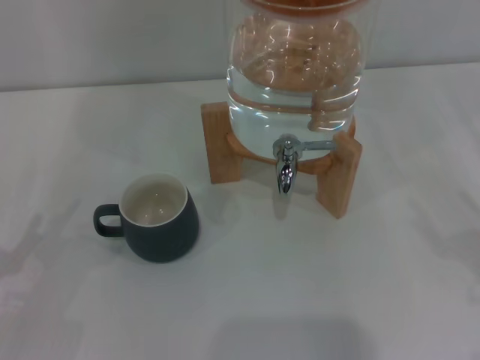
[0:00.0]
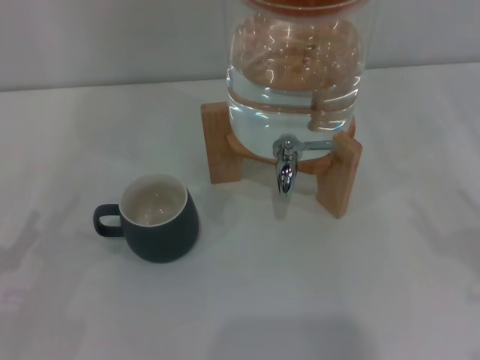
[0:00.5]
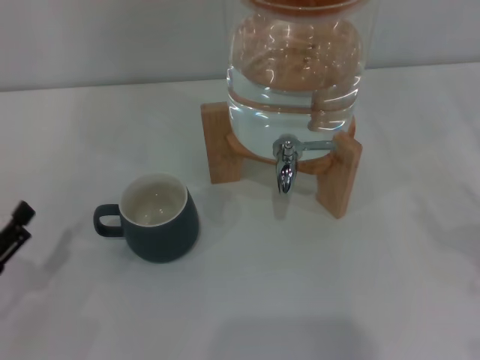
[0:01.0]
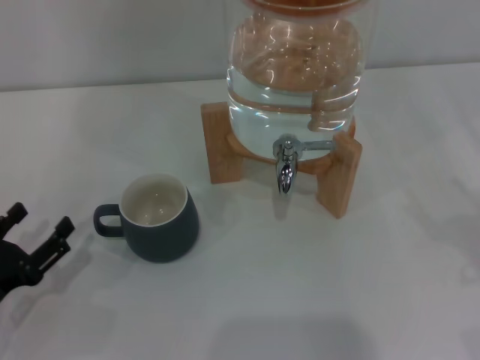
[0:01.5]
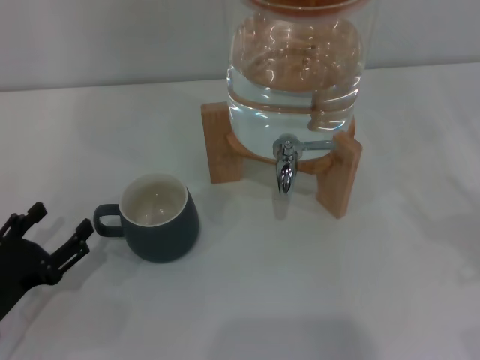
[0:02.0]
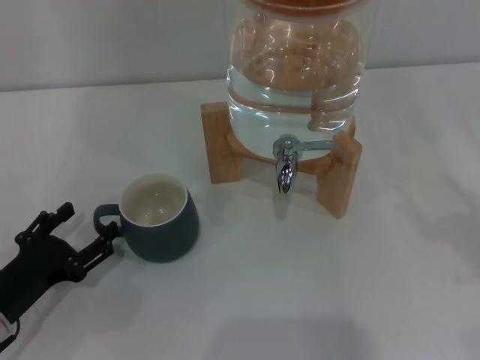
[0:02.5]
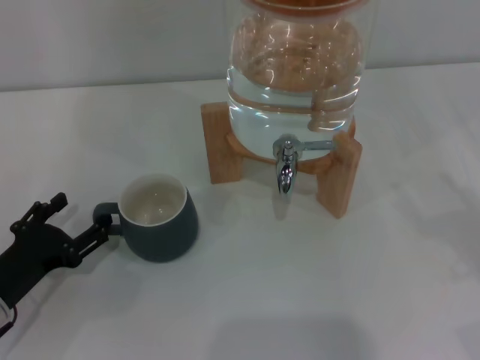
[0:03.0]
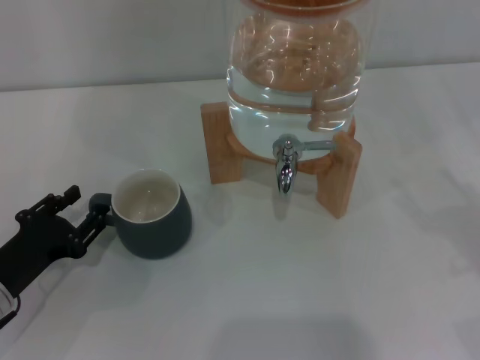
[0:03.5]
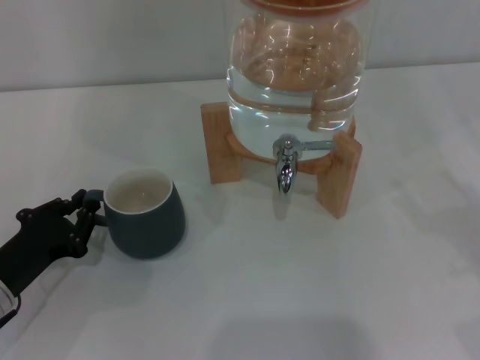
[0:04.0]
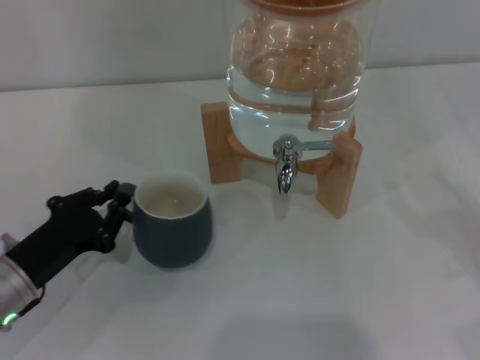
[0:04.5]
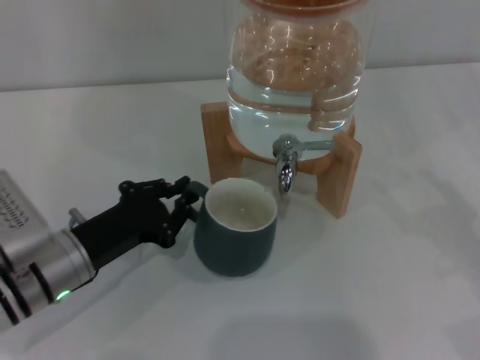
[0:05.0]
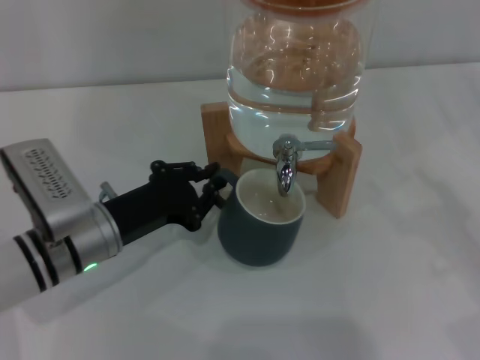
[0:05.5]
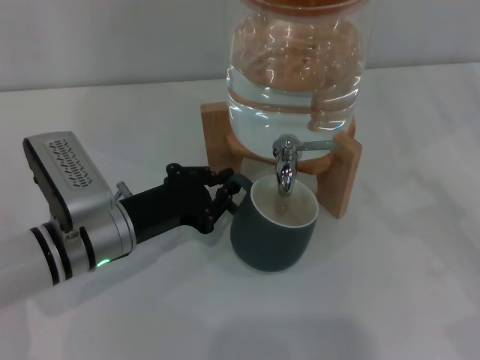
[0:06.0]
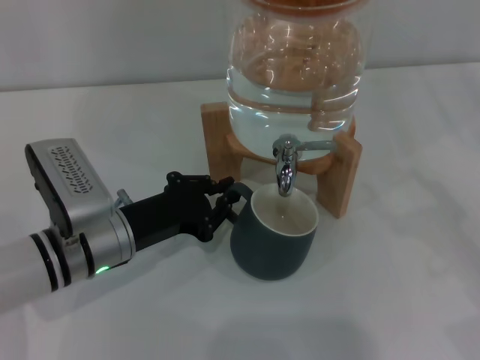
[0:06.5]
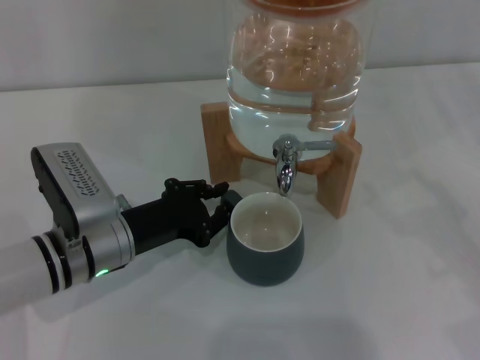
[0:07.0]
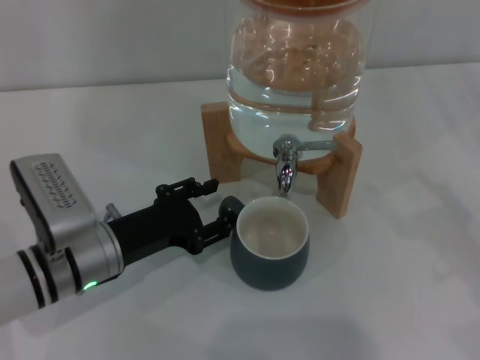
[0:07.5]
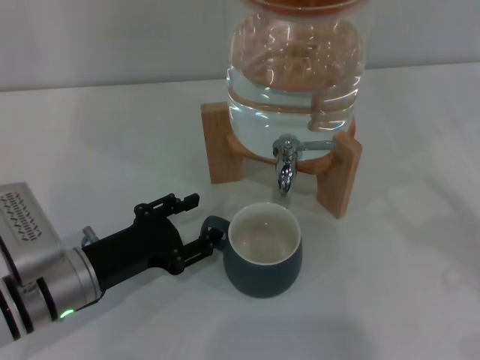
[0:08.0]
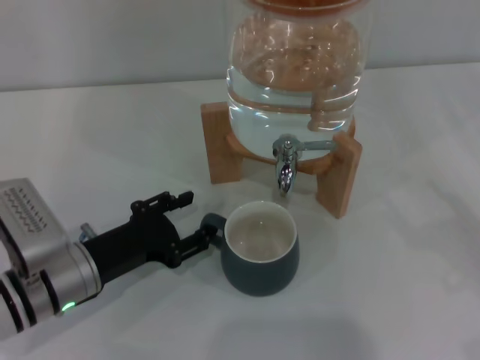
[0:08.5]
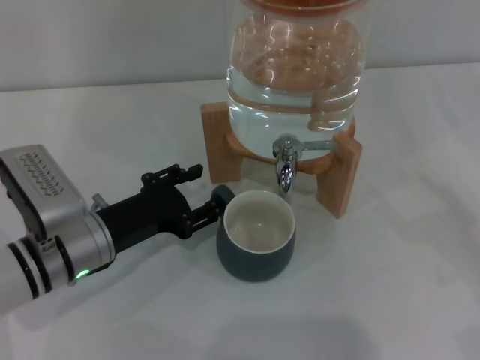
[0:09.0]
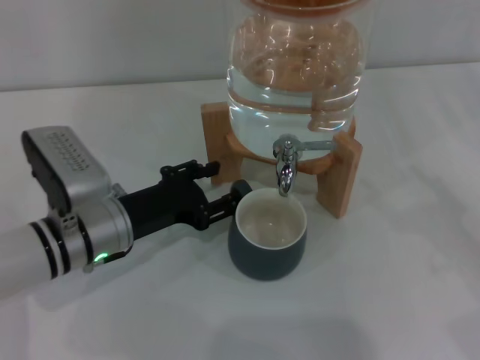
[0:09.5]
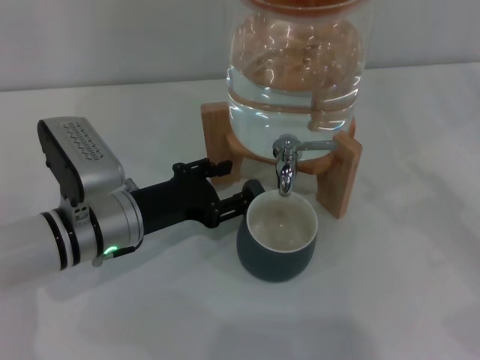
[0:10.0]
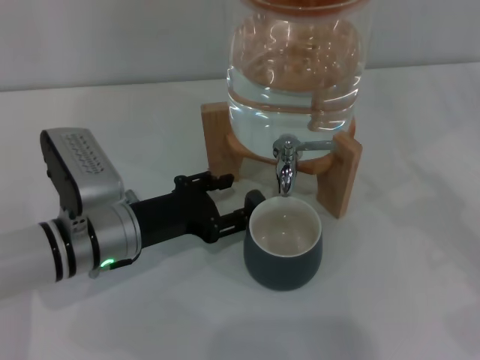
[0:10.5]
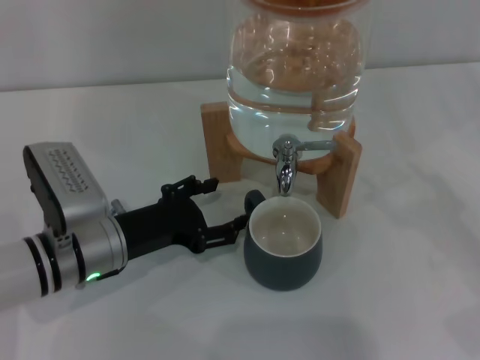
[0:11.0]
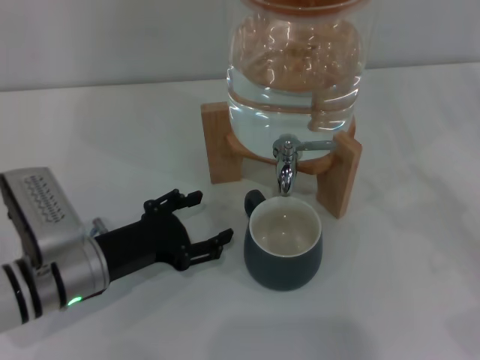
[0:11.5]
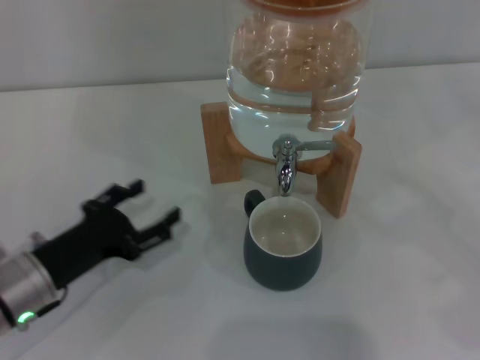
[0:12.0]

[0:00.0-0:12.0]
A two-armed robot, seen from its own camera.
Task of the whole recording: the left gripper pick up the black cup and place it horizontally under the faucet, the right gripper turn on the faucet to fill the cup, and then turn off the faucet.
Step, 0:00.0 to 0:11.0: Move the cup beneath the water dispenser nozzle with the left gripper.
0:00.0 to 0:02.0: The left gripper shifts by some 5 cm.
0:02.0 to 0:04.0: The left gripper closes.
0:04.0 to 0:06.0: The left gripper heads to the right and forward, covering some 15 cm.
0:06.0 to 0:08.0: The left gripper shifts by approximately 5 cm, and opens up.
0:08.0 to 0:10.0: The left gripper moves forward, some 5 cm.
0:10.0 to 0:12.0: The left gripper travels to the left and backward by about 10 cm.

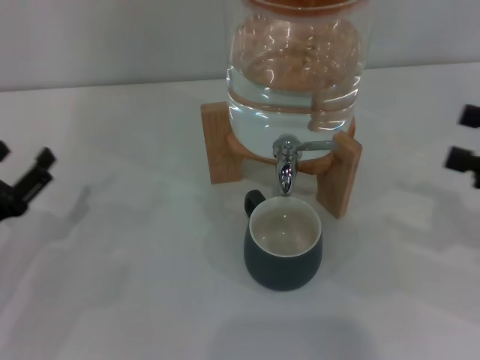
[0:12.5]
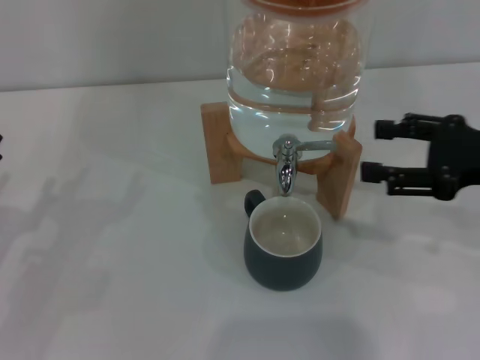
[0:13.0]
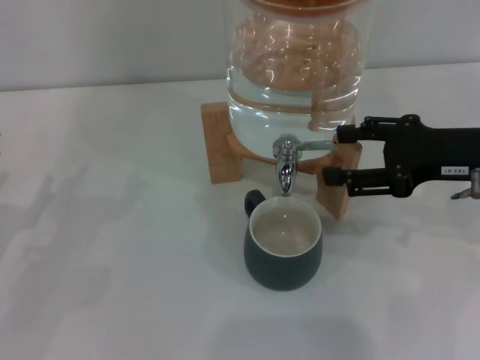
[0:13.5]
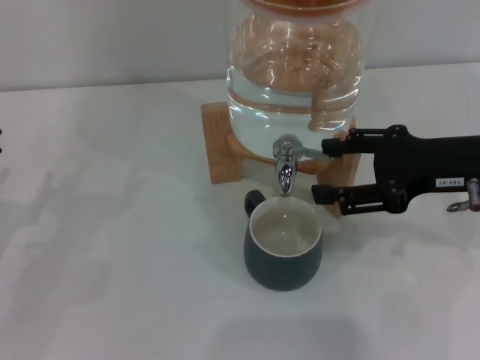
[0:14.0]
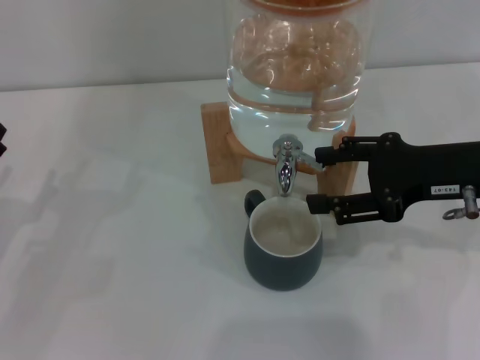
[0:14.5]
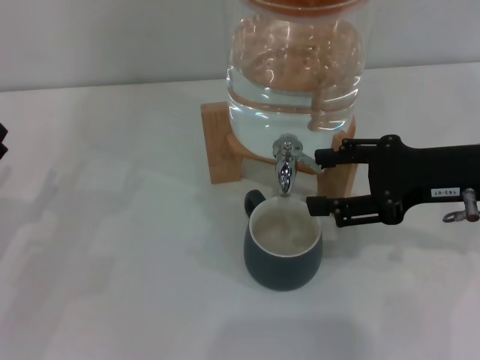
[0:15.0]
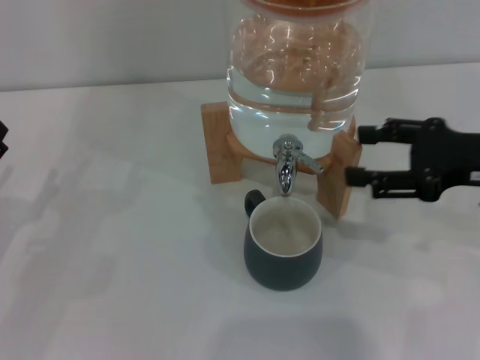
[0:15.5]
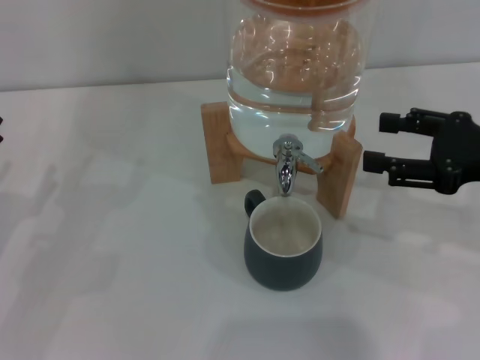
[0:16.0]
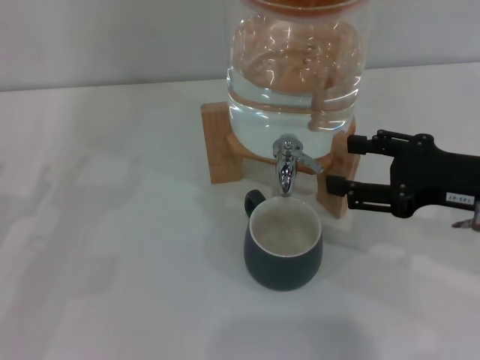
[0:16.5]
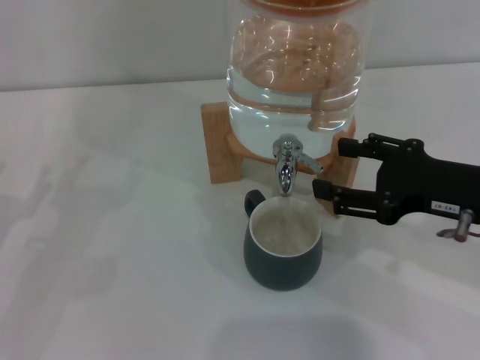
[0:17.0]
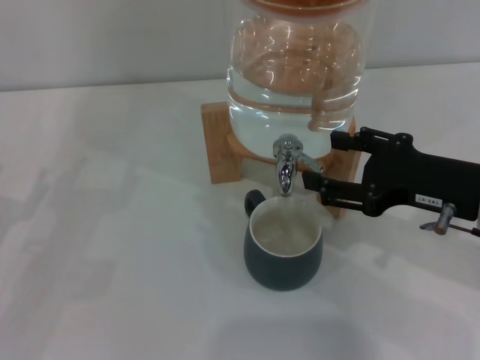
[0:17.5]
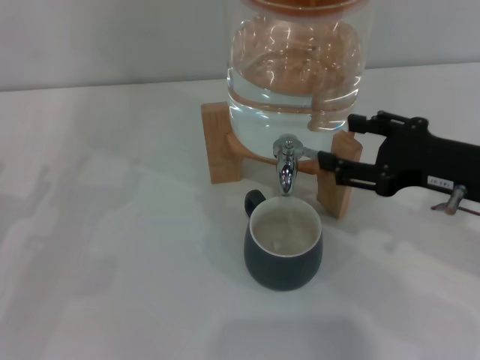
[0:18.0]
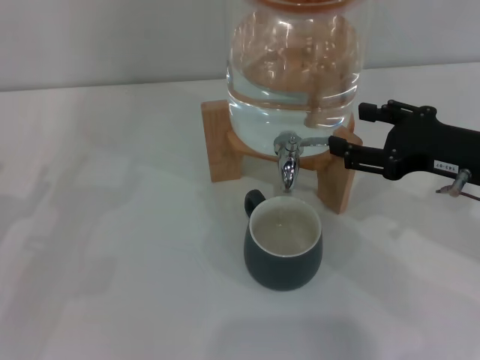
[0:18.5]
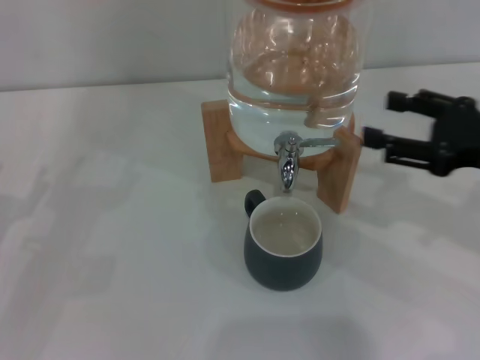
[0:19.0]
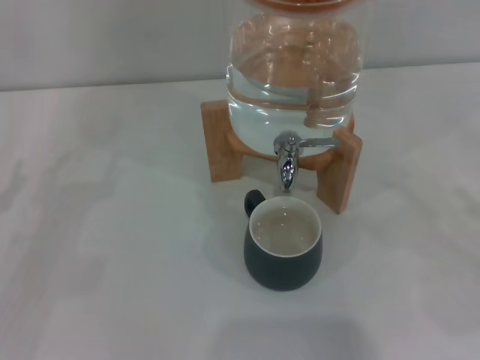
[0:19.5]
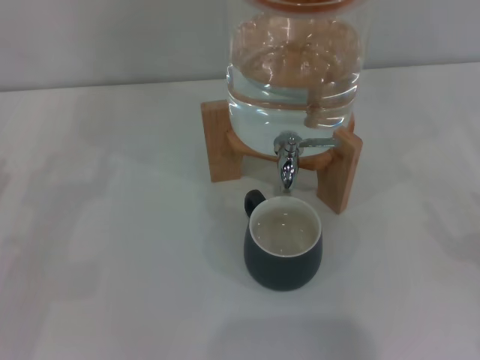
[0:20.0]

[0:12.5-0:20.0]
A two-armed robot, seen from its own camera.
Task of the whole recording: the left gripper pick up the black cup and place it horizontally under the faucet, the right gripper turn on the faucet to fill the cup, and then turn off the faucet.
Step, 0:12.5 to 0:15.0: Open the dispenser valve and fill the cup with water with the right gripper.
Step, 0:15.5 to 0:18.5: Close the dispenser valve with the right gripper.
0:12.5 to 0:14.5: The right gripper shifts some 10 cm to the left and forward.
0:14.5 to 0:16.5: The grippers stay close to where they were, moving slightly.
0:16.5 to 0:18.0: The grippers make only small movements.
0:18.0 to 0:20.0: The right gripper is displaced to the right, backward and downward by about 20 cm.

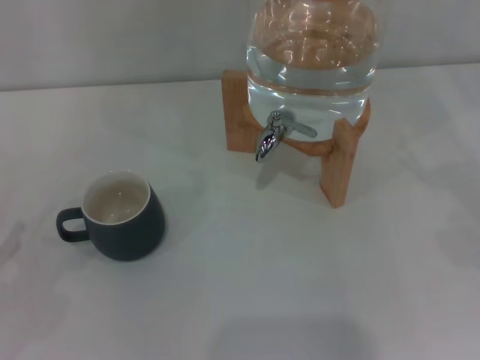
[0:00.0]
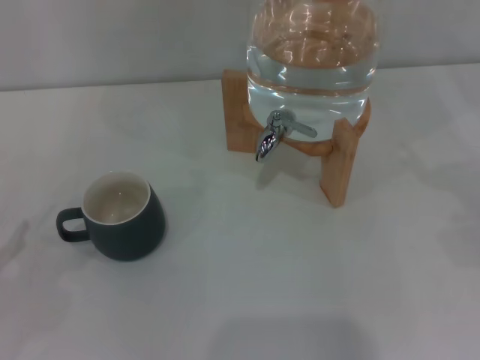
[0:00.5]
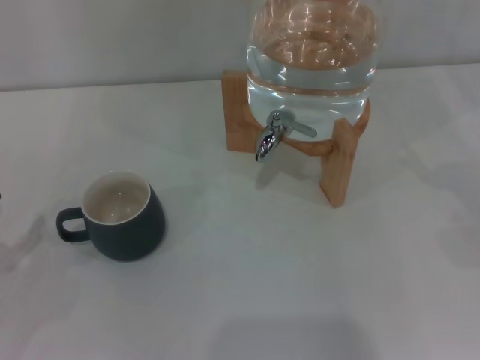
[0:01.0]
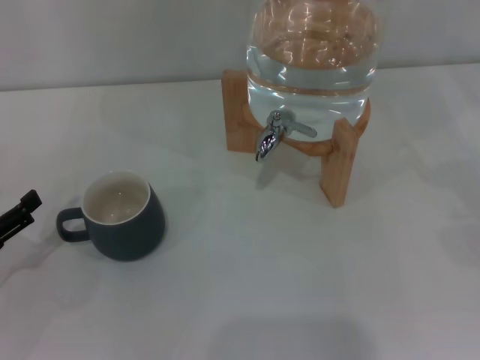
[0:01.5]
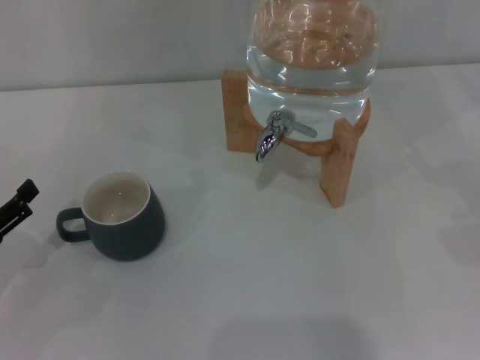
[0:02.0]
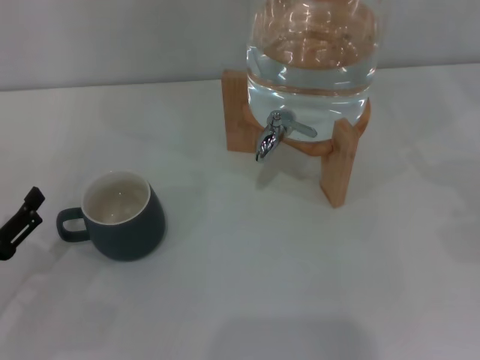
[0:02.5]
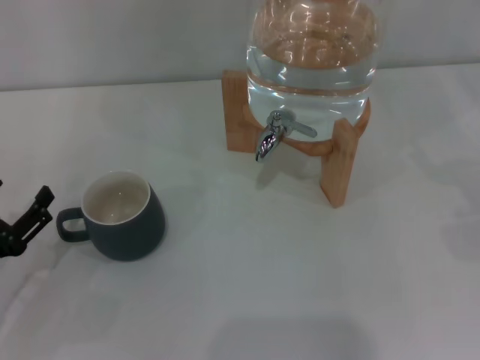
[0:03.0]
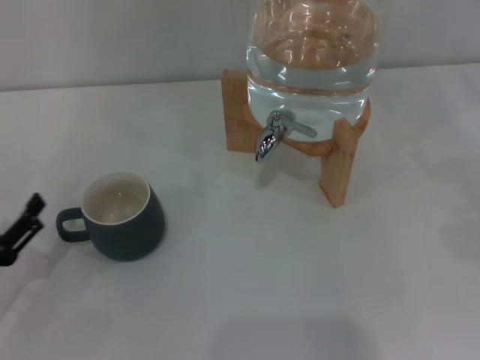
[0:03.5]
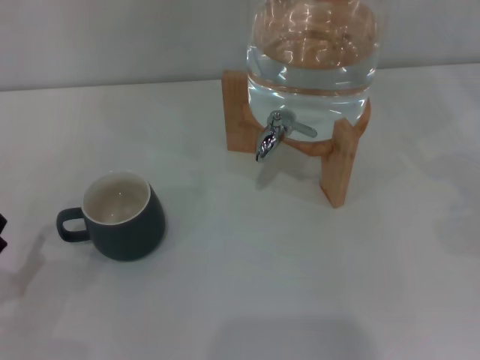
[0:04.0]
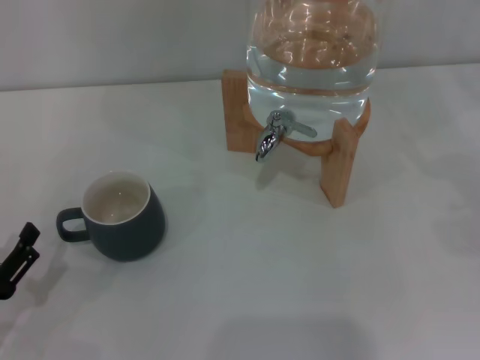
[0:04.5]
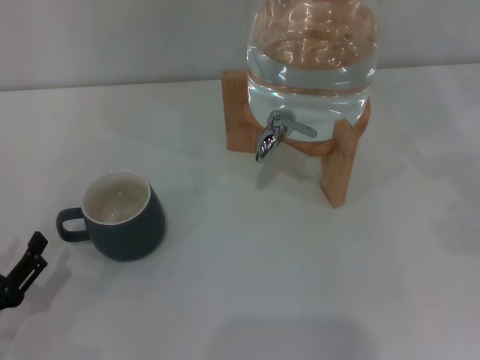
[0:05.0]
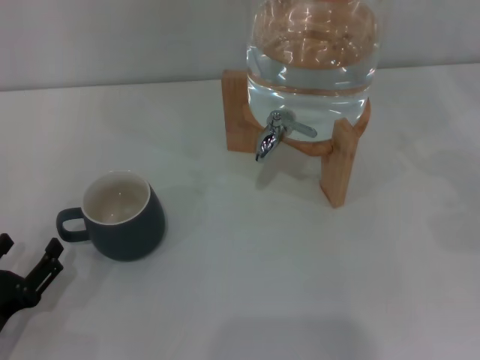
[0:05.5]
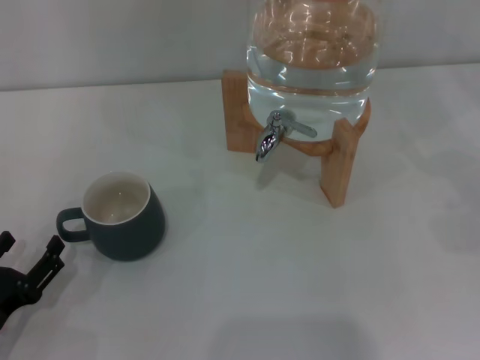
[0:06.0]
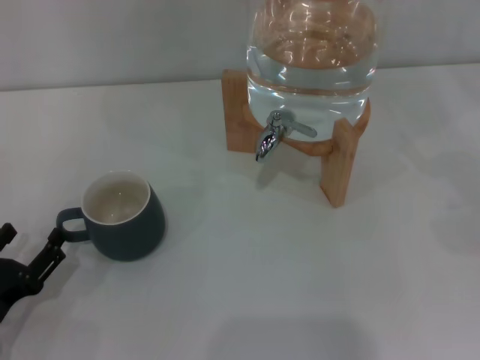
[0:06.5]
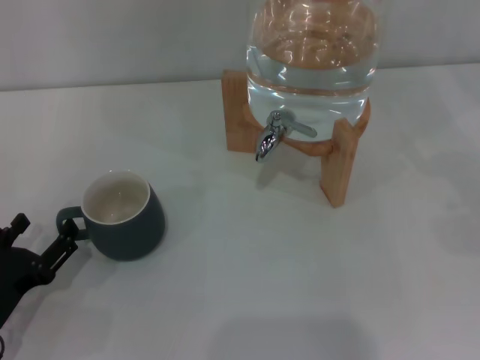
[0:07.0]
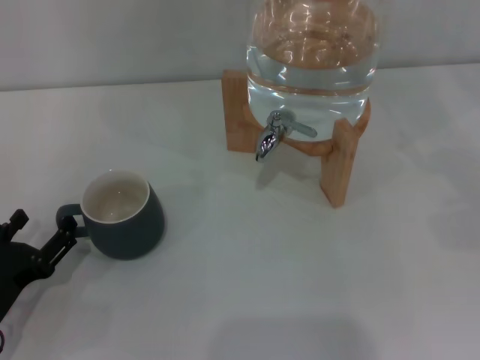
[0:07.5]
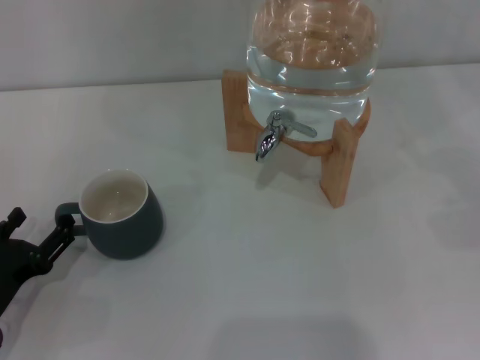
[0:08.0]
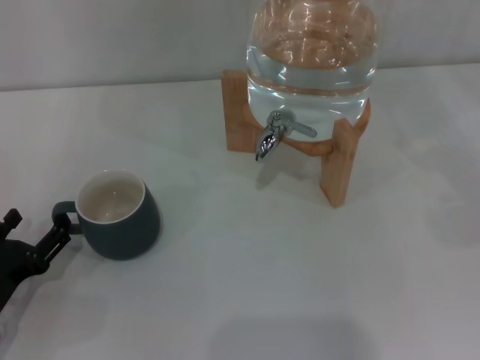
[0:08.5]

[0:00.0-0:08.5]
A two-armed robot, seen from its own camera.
Task of the whole recording: the left gripper pick up the black cup and place it horizontally under the faucet, the right gripper turn on the faucet to fill the cup, and then turn off the faucet.
0:00.0 to 0:02.0: The left gripper ends up some 5 cm from where it was.
0:02.0 to 0:04.0: The left gripper travels backward by some 5 cm.
0:04.0 to 0:08.5: The grippers move only a little.
